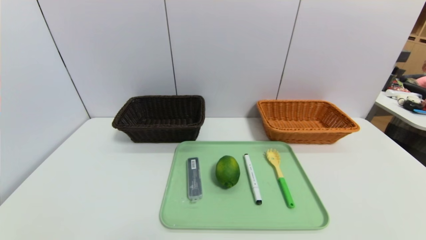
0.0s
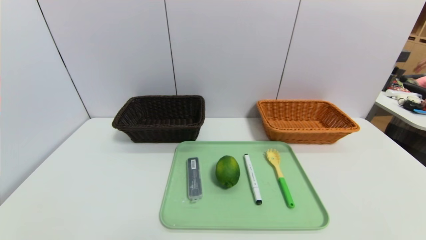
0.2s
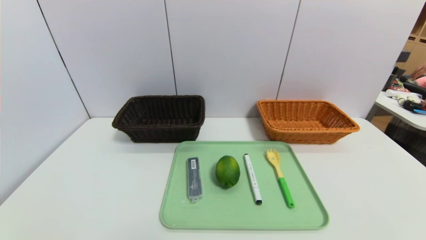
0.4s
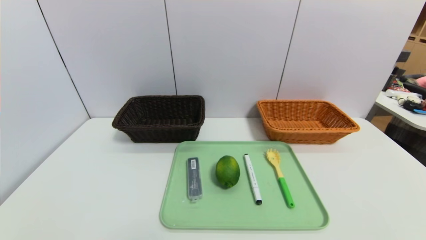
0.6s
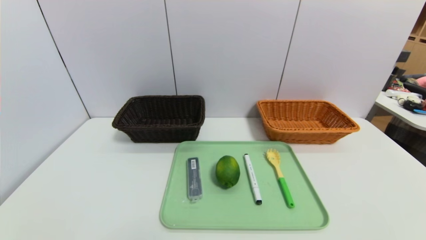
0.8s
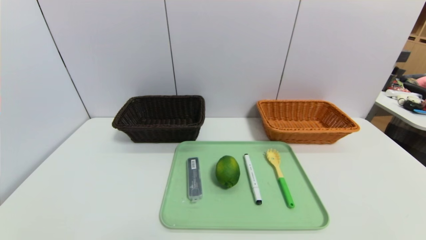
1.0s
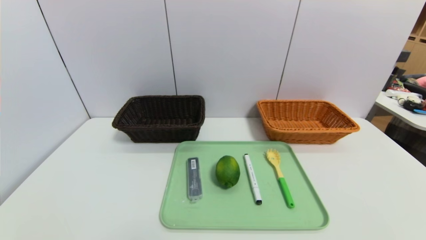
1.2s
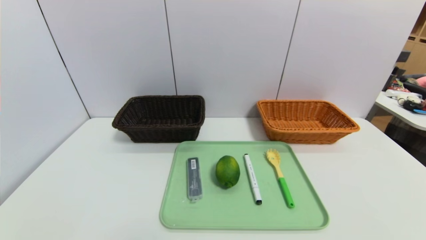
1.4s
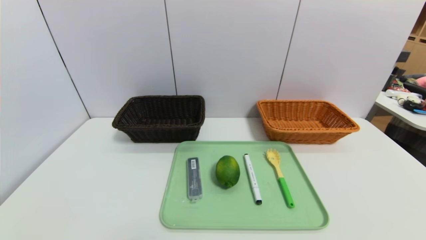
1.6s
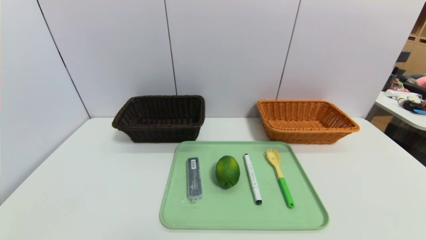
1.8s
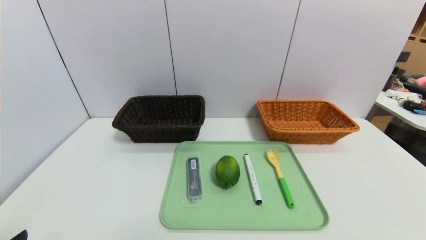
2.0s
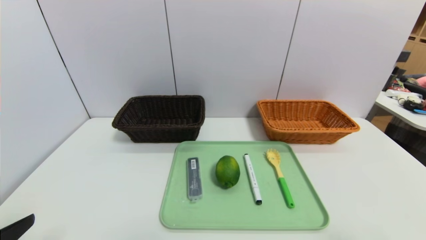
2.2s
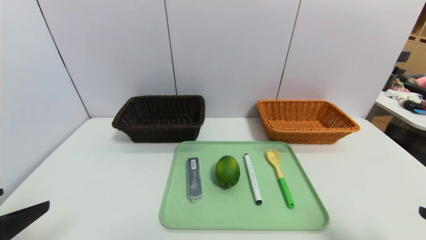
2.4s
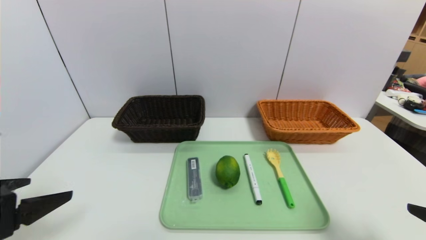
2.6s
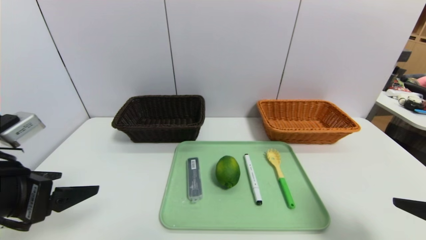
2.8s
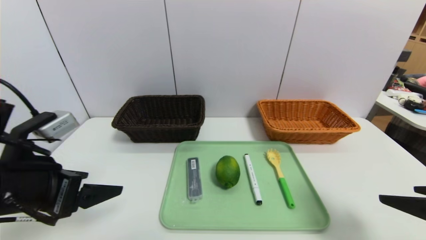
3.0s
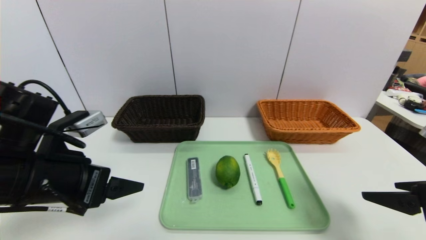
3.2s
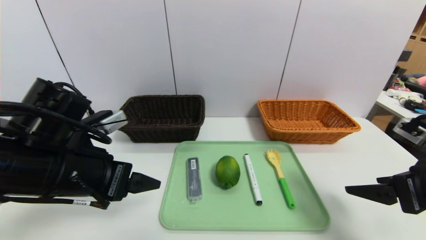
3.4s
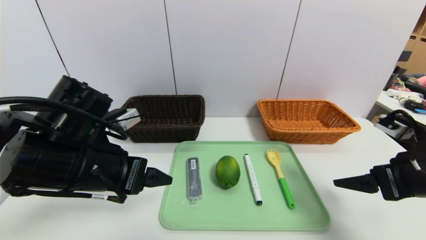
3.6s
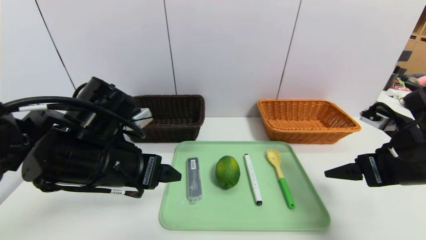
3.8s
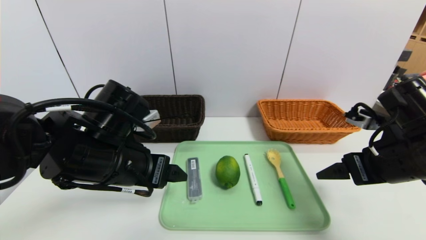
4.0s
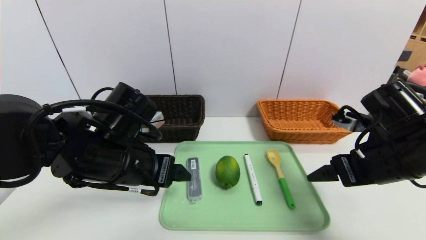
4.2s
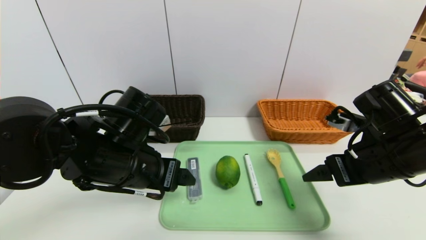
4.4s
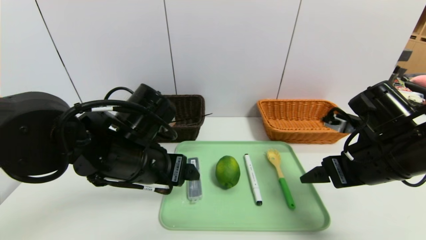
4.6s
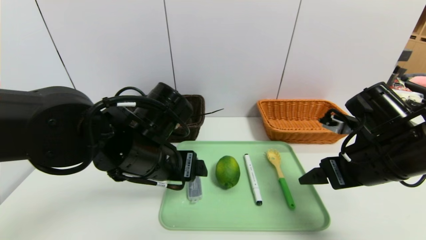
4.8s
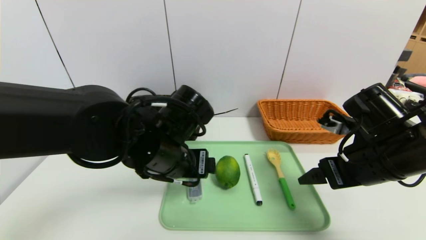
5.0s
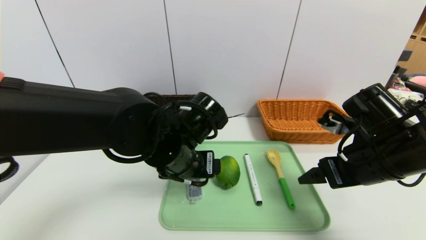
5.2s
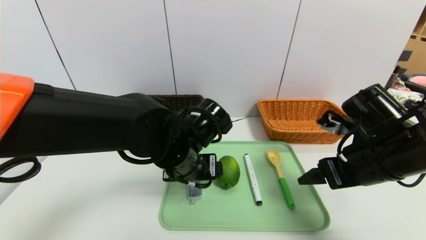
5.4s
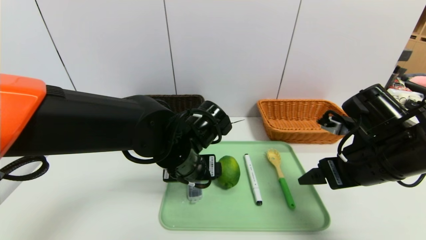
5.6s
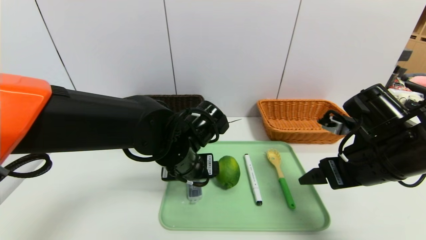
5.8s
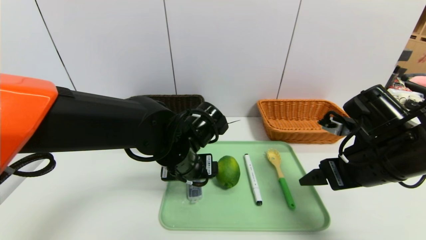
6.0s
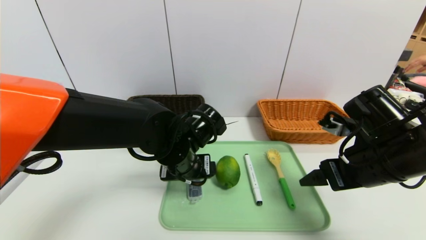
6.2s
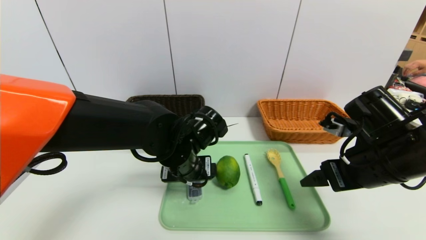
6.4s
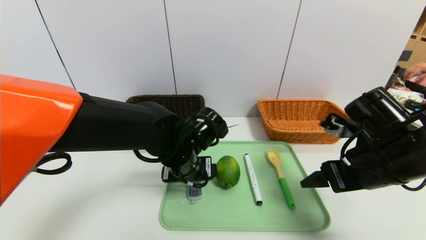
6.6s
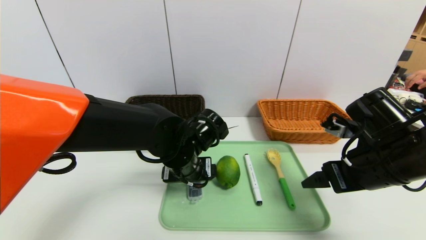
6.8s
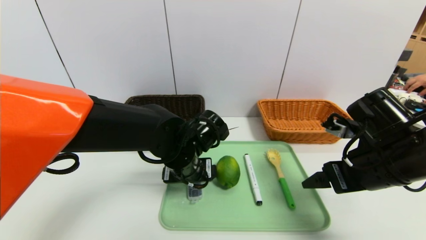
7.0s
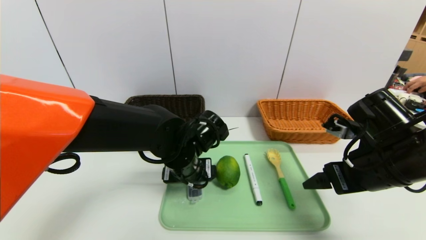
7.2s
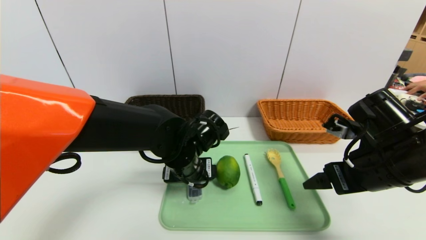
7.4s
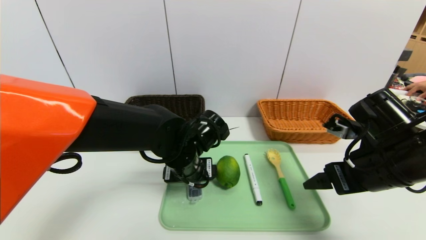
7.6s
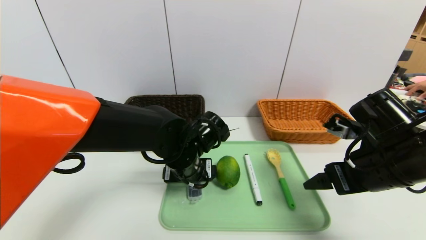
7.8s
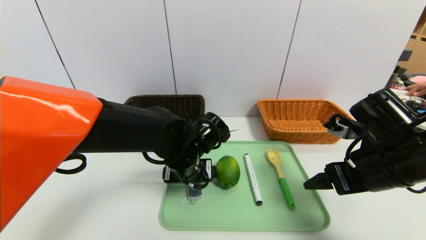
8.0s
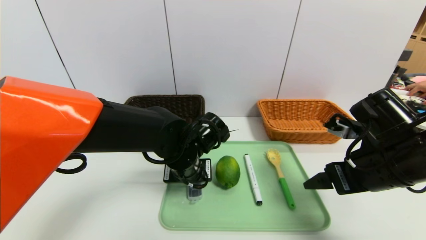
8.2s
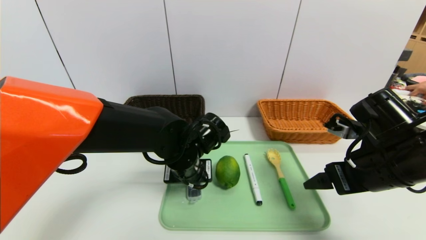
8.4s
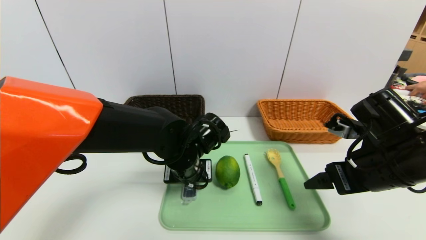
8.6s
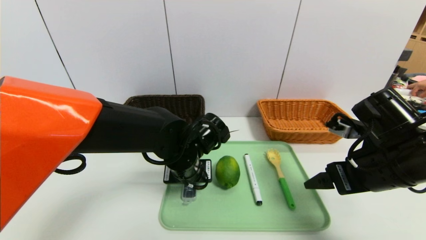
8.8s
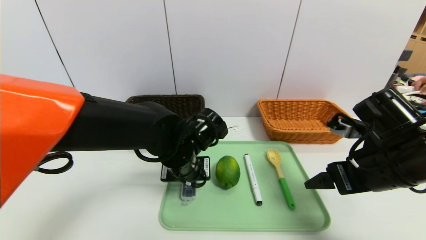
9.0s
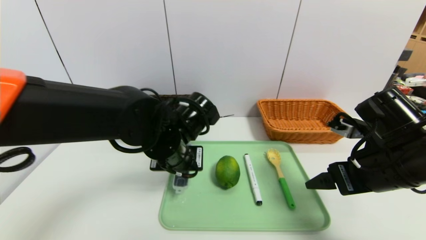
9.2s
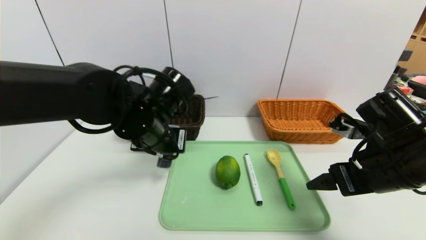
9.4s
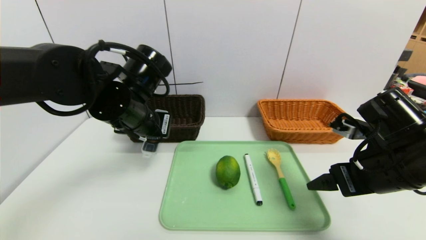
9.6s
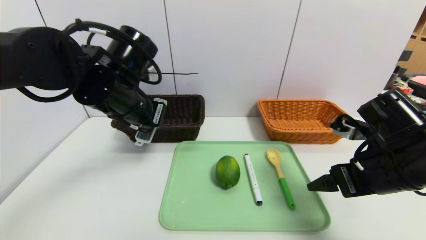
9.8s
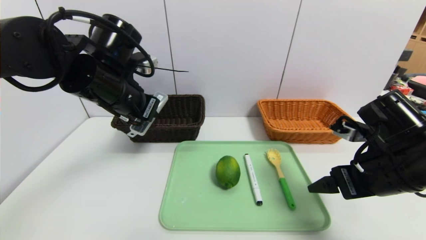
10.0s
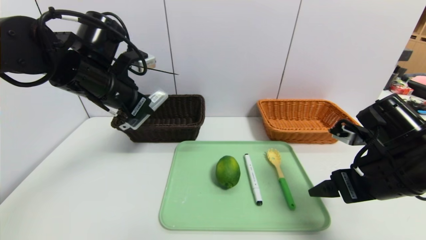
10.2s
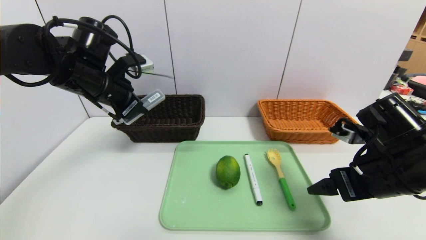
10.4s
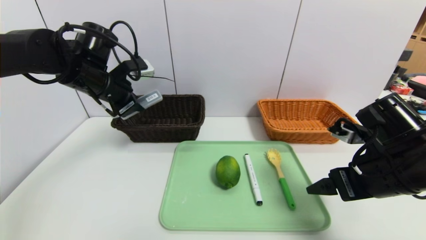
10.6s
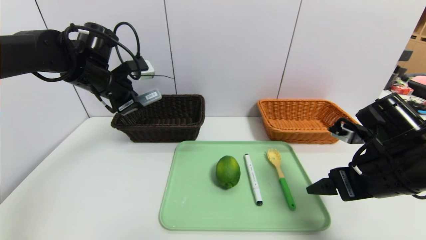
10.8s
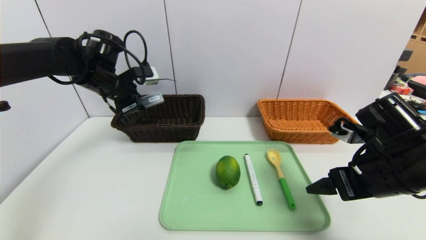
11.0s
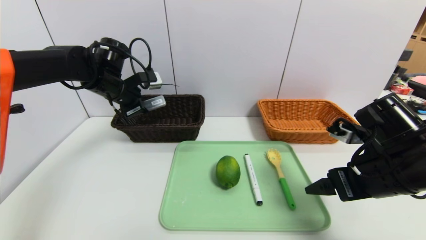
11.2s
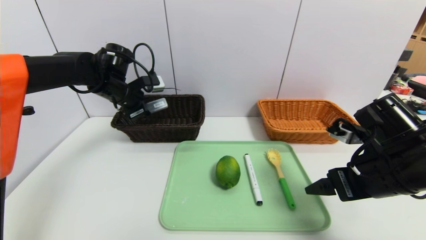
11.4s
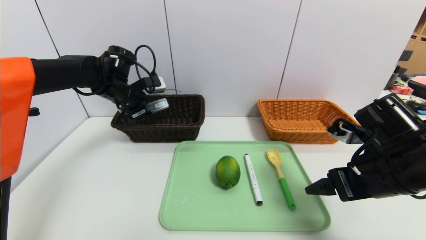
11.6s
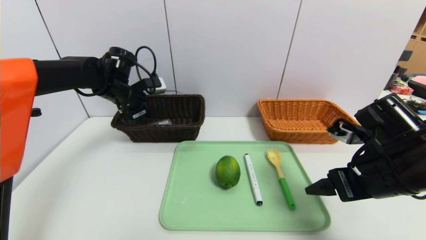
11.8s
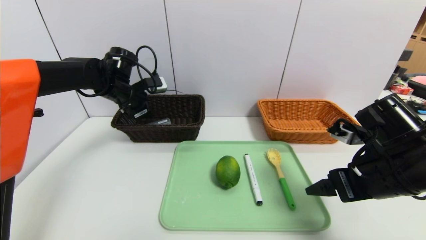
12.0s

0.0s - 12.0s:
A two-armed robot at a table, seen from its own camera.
Task of the whole recording: place the food in the right basket with the right gripper, and place the non food items in the left basket with the left gripper.
1.6s - 3.0s: Both grippers move forward and upward, about 20 cm.
3.0s - 4.4s: The right gripper moves forward and to the left, approximately 15 cm. The left gripper is displaced to the right and forward by roughly 15 cm.
4.4s - 6.0s: The left gripper goes some 10 cm to the right.
6.0s - 7.6s: The grippers make only small movements.
7.6s - 9.0s: The left gripper closes its fingers.
9.0s - 10.4s: The left gripper travels to the left and upward by about 20 cm.
10.4s - 12.0s: The left gripper heads forward and downward, covering approximately 10 cm, and opens.

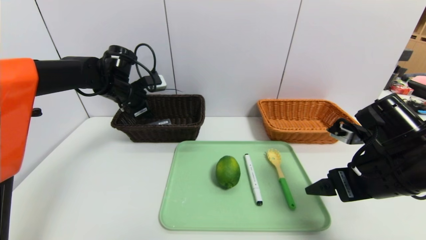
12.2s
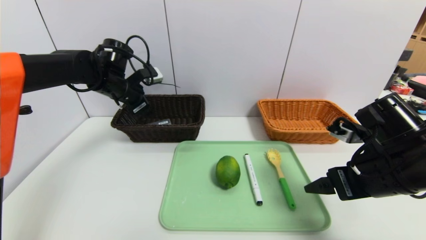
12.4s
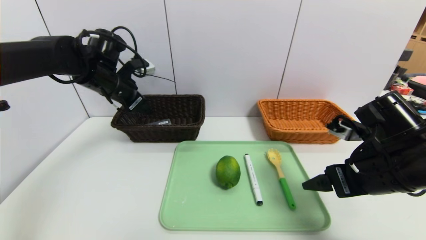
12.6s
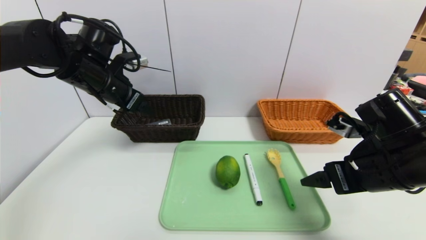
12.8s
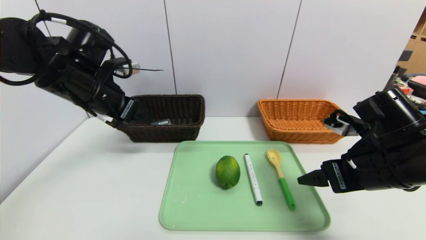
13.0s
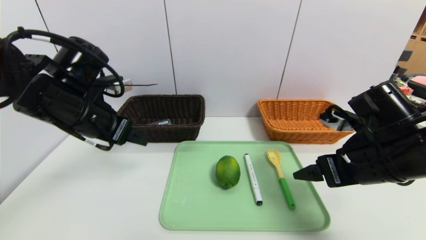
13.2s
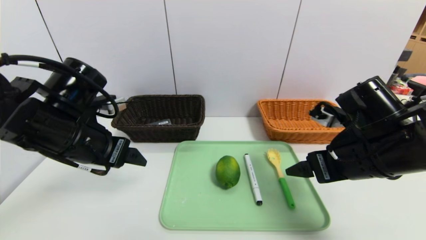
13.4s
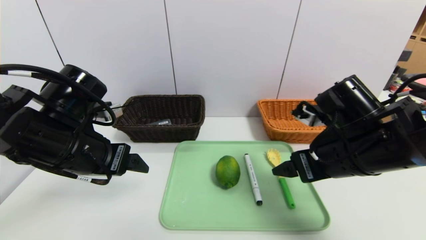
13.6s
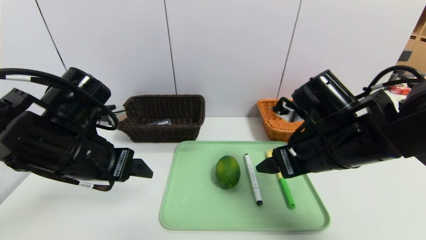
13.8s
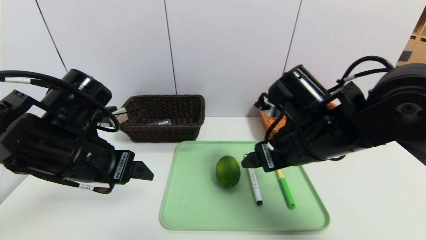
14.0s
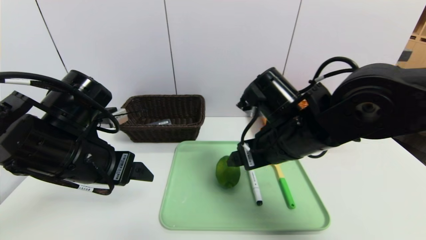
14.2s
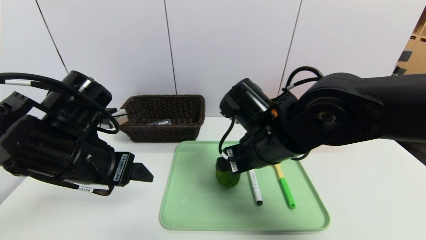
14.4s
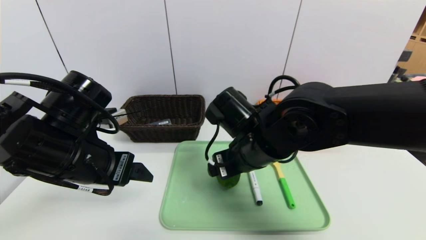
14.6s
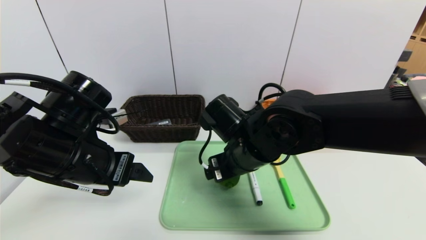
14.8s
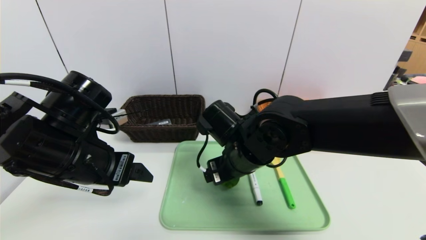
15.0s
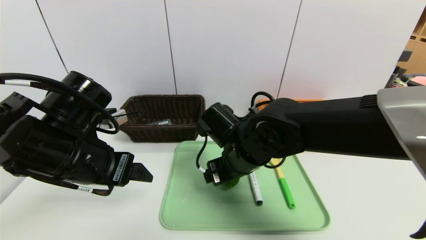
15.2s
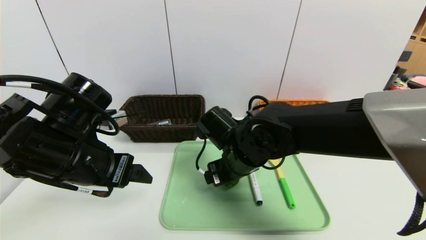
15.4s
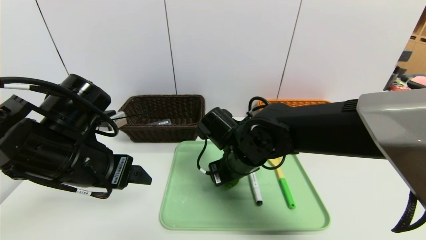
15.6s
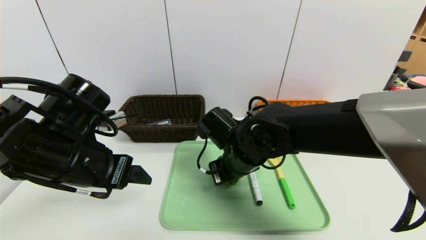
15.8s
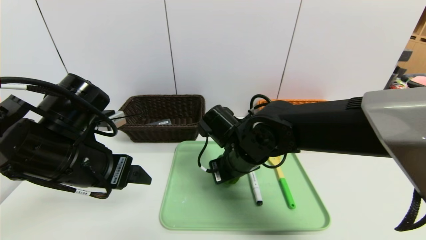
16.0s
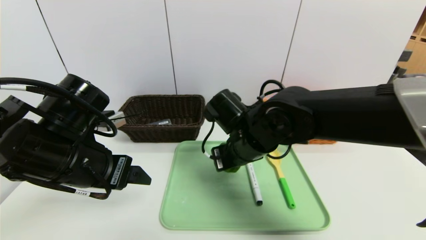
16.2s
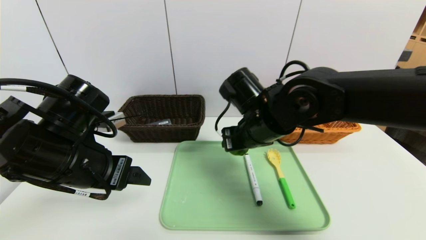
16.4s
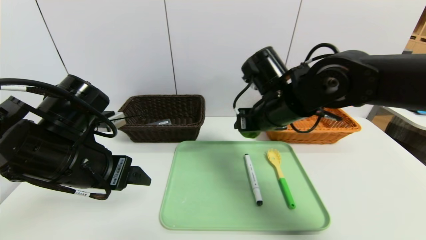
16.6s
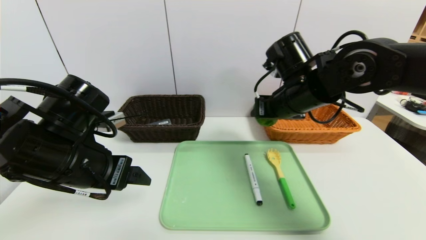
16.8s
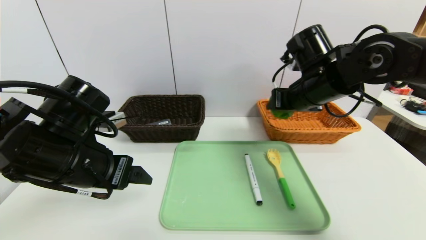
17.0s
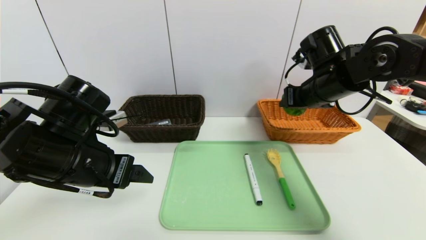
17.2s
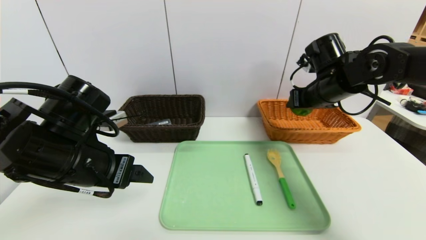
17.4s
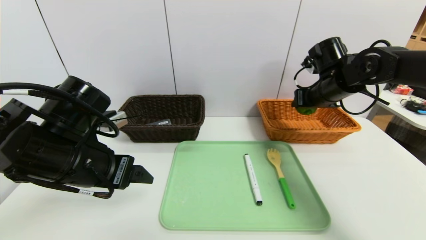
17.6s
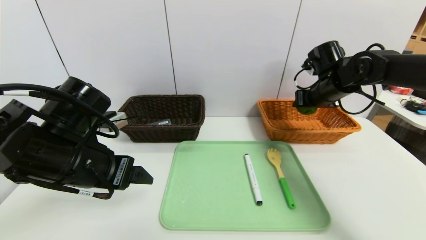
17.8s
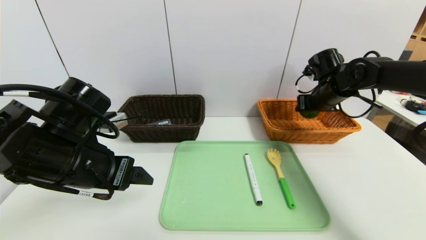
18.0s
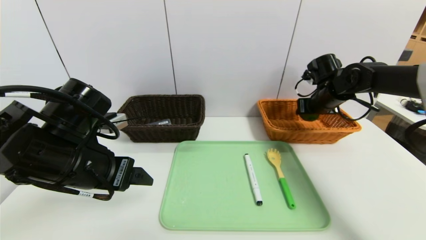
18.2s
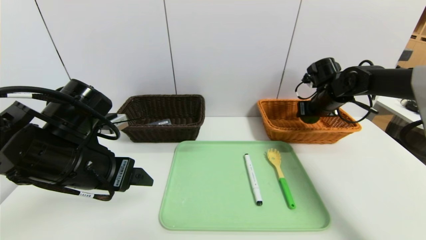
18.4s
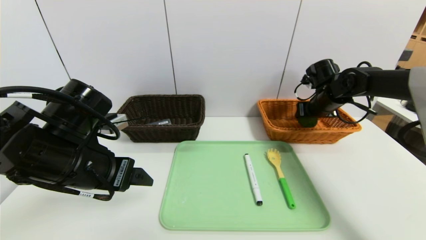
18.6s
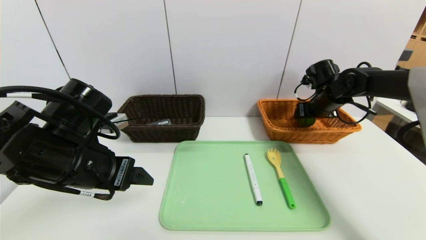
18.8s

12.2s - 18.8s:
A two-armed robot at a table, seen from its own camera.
Task of the whole recording: place the food in the right basket with the right gripper, and place the non food items in the left basket with the left gripper.
12.2s - 13.8s: The left gripper heads backward, covering approximately 20 cm. Meanwhile the right gripper travels to the left by about 10 cm.
13.8s - 15.4s: The right gripper travels to the left and downward by roughly 15 cm.
15.4s - 17.2s: The right gripper moves to the right, upward and forward, approximately 20 cm, and closes.
17.2s - 18.8s: The right gripper is displaced forward, to the right and downward by about 15 cm.
